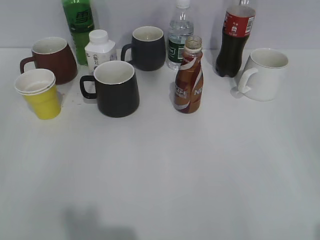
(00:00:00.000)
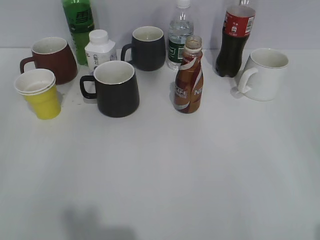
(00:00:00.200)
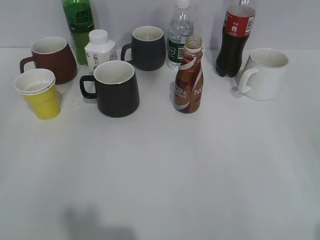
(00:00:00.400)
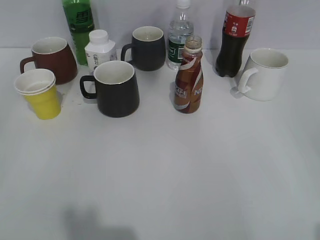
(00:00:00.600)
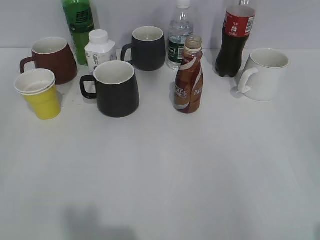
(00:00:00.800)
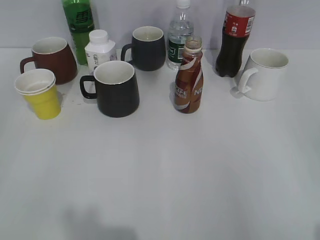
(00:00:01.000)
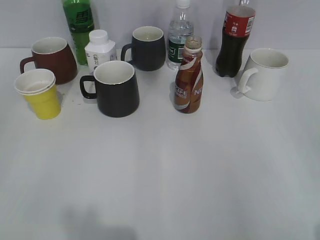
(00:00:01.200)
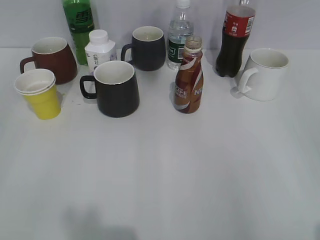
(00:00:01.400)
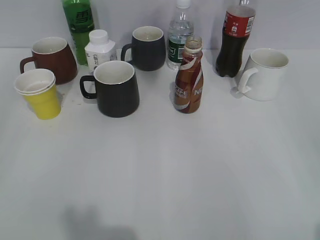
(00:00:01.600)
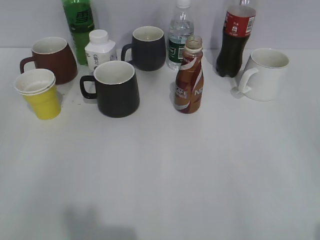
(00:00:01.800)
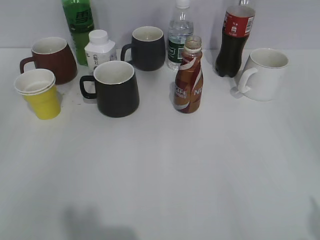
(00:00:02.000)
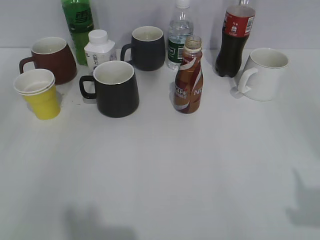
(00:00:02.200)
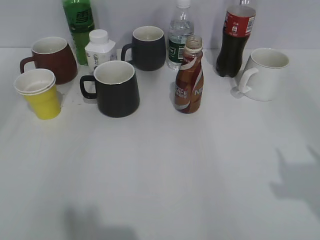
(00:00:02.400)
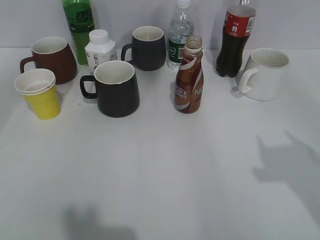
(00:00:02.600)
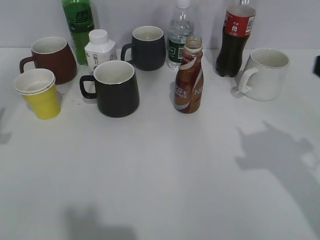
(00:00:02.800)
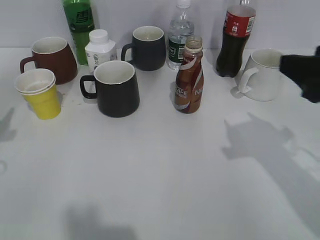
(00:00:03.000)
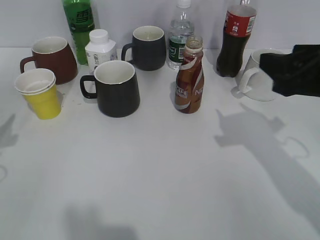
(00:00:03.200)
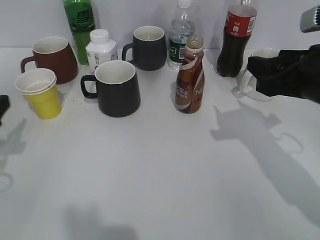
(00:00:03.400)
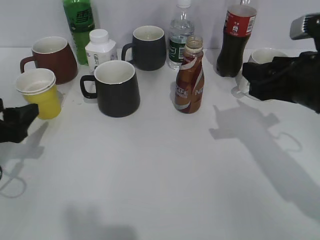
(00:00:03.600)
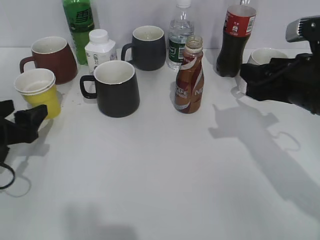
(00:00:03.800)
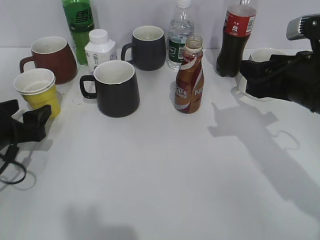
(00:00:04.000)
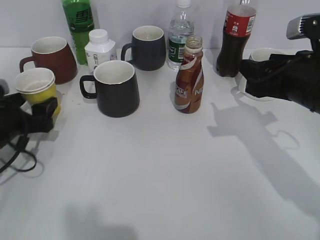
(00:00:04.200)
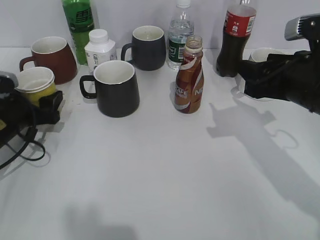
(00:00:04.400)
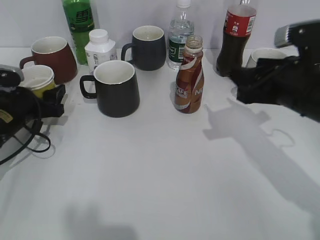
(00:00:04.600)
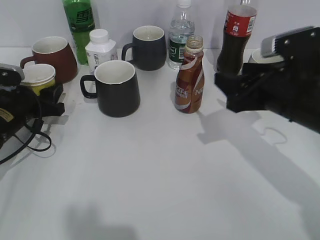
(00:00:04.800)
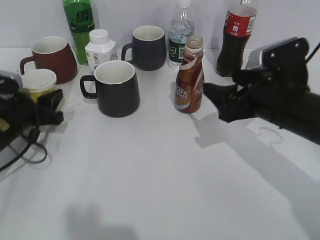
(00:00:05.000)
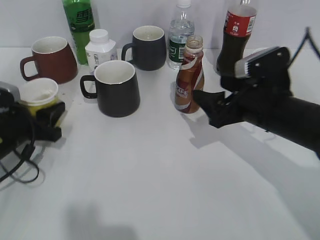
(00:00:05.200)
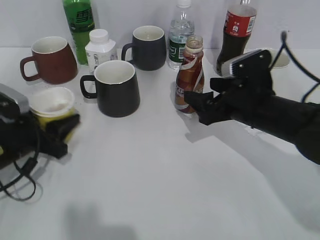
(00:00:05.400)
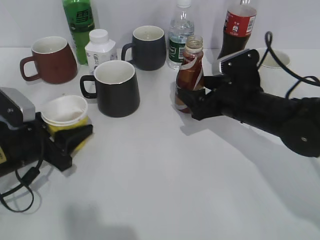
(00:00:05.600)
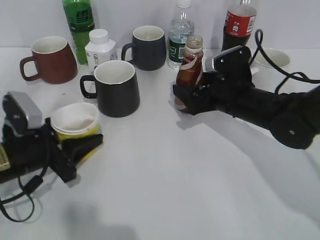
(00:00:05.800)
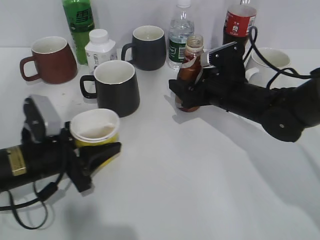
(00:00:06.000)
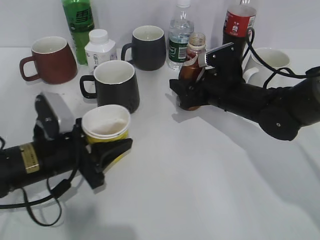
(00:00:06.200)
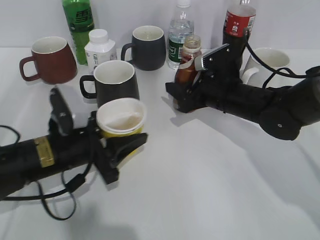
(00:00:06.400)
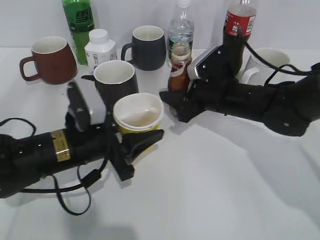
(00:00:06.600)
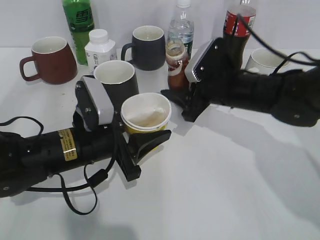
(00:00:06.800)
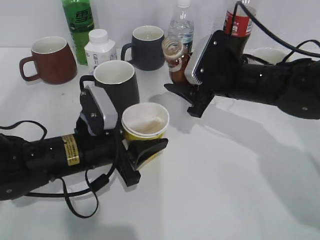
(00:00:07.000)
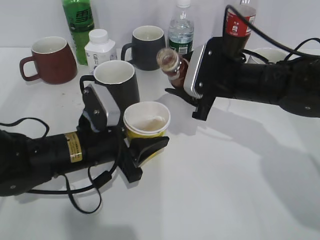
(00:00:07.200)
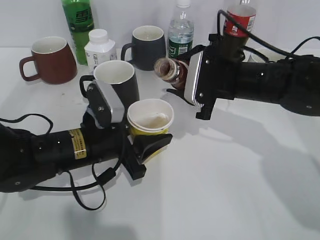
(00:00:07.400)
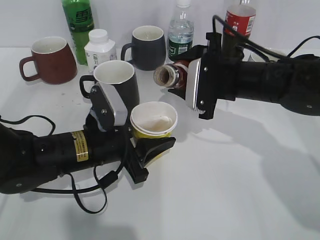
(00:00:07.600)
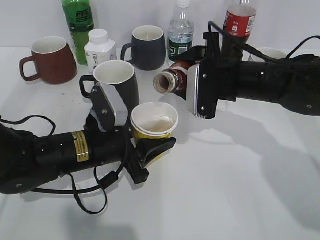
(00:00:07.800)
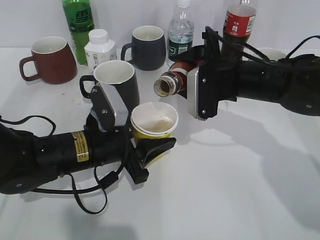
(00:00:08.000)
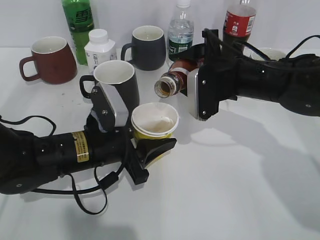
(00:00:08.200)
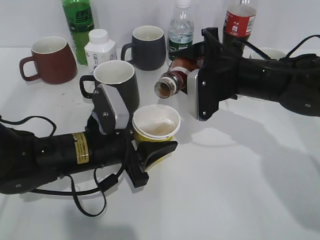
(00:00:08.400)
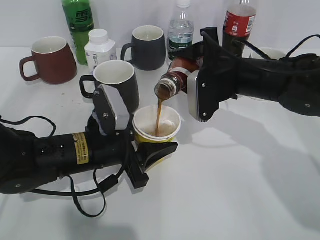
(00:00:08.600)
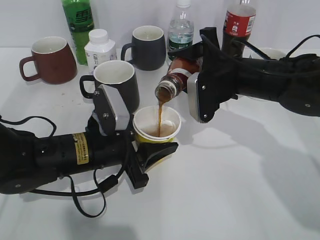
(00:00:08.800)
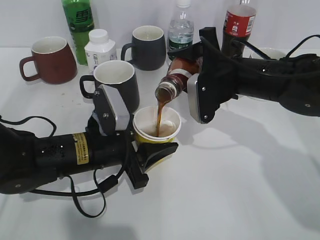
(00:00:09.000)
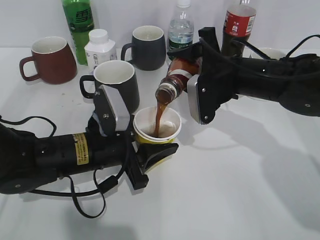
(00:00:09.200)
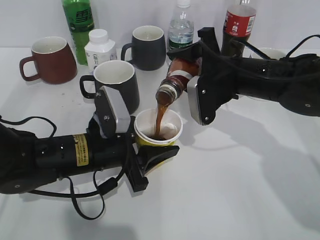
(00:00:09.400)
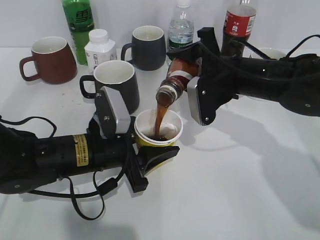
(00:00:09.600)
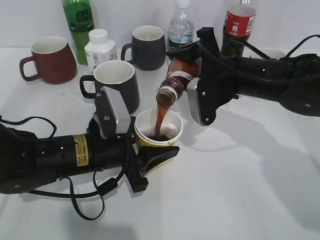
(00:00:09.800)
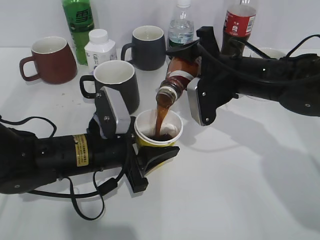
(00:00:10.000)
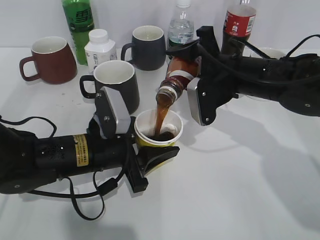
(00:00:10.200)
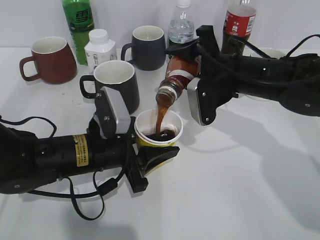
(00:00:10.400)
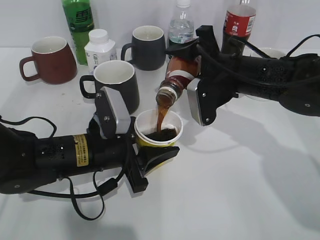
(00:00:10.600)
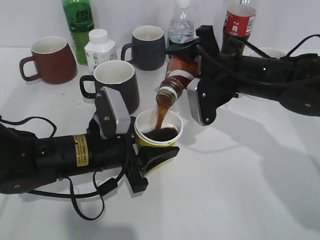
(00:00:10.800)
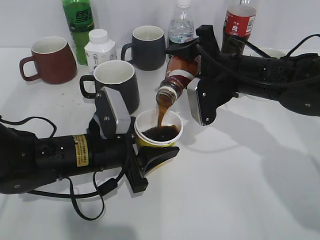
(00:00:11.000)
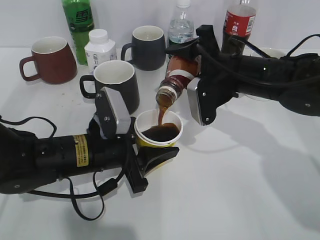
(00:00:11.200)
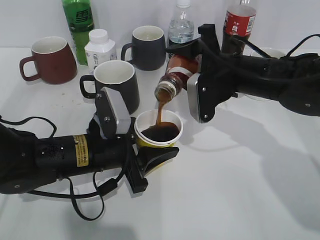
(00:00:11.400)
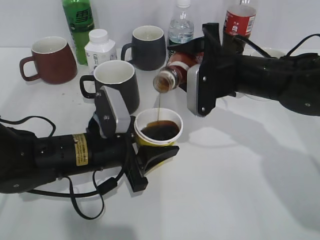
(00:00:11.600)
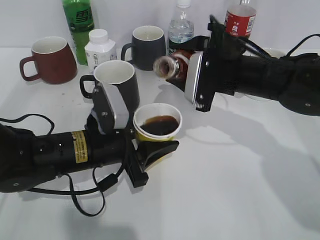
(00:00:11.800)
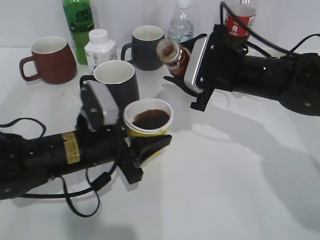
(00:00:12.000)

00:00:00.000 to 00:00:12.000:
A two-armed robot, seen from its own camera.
Step, 00:00:01.800 to 00:00:04.800: Grasp the yellow paper cup with left gripper.
Step, 00:00:05.000 to 00:00:06.200: Grasp the bottle with coffee with right gripper.
Step, 00:00:06.400 to 00:00:11.600: Pour the coffee from bottle to cup with right gripper.
00:00:01.600 to 00:00:03.000: The right gripper shifts some 20 cm forward.
00:00:03.000 to 00:00:04.400: The right gripper shifts roughly 10 cm forward and downward. Meanwhile the left gripper is displaced downward and forward by some 15 cm.
00:00:04.400 to 00:00:06.000: The right gripper travels downward, forward and to the left by roughly 15 cm, and opens its fingers. The left gripper moves to the right and backward, approximately 10 cm, and closes.
00:00:06.000 to 00:00:07.600: The right gripper ends up roughly 5 cm from where it was, and closes its fingers. Meanwhile the left gripper is displaced to the right by some 10 cm.
00:00:09.000 to 00:00:10.400: There are only small adjustments of the grippers.

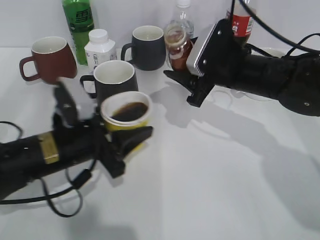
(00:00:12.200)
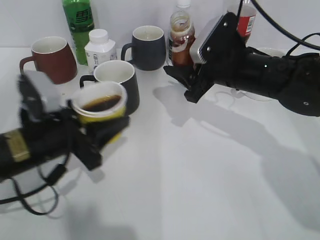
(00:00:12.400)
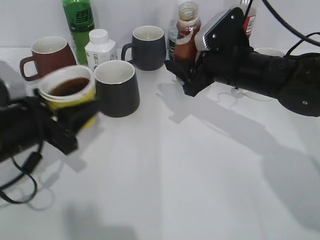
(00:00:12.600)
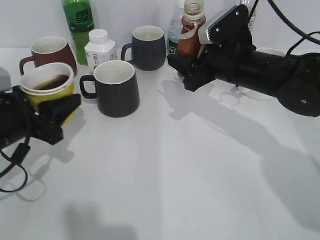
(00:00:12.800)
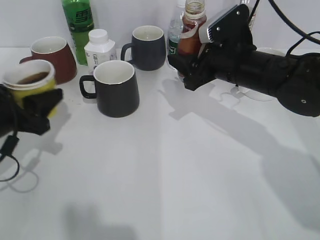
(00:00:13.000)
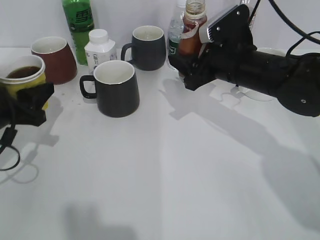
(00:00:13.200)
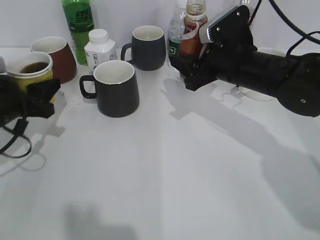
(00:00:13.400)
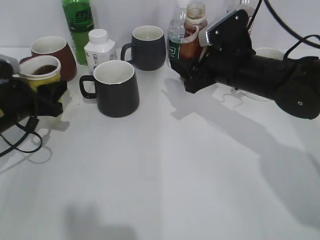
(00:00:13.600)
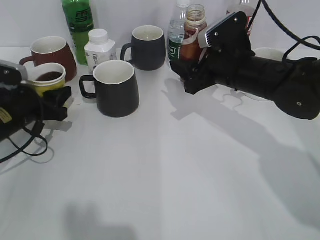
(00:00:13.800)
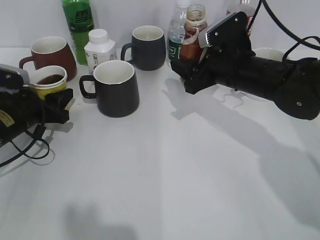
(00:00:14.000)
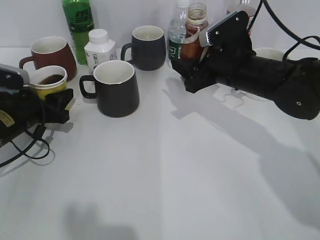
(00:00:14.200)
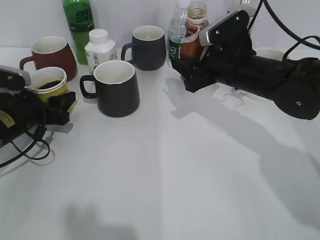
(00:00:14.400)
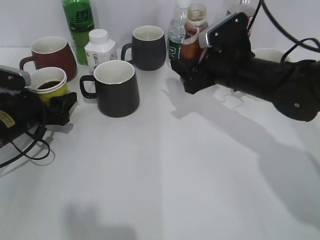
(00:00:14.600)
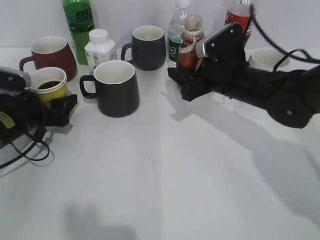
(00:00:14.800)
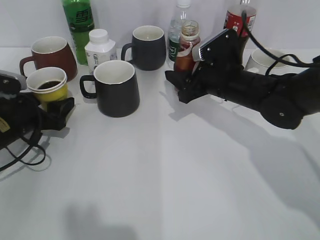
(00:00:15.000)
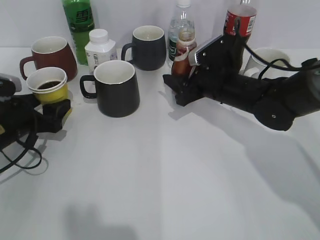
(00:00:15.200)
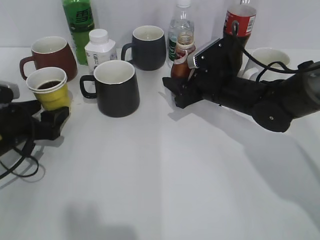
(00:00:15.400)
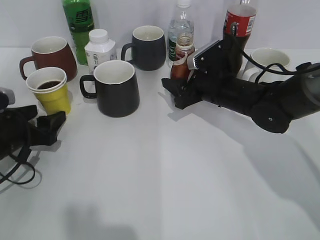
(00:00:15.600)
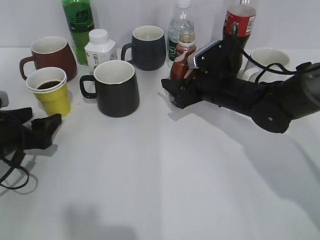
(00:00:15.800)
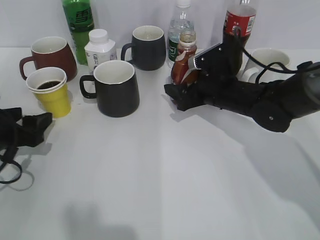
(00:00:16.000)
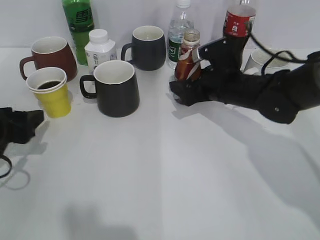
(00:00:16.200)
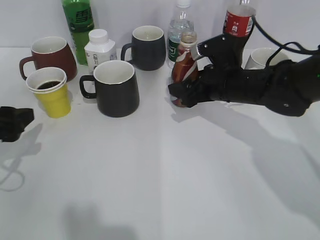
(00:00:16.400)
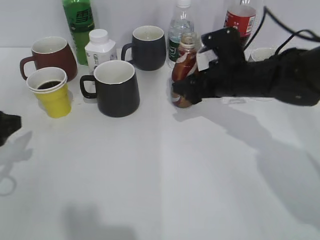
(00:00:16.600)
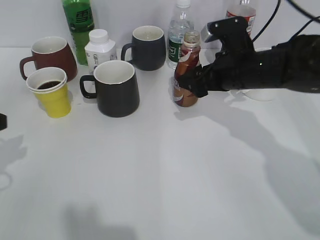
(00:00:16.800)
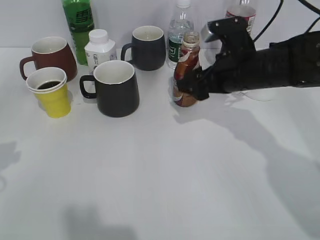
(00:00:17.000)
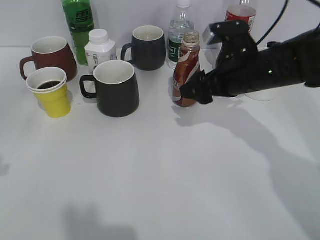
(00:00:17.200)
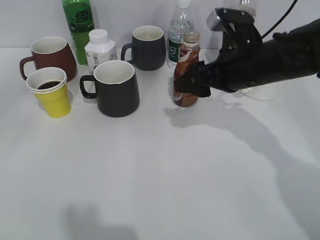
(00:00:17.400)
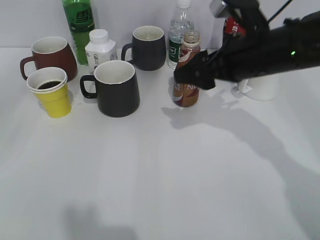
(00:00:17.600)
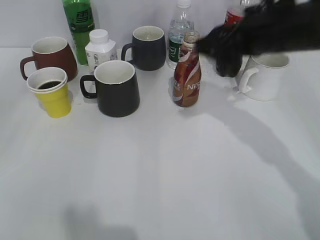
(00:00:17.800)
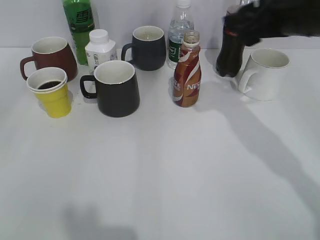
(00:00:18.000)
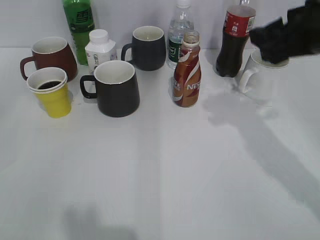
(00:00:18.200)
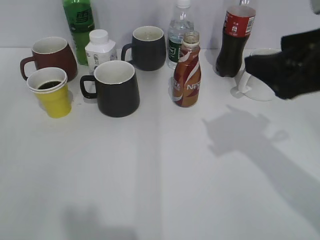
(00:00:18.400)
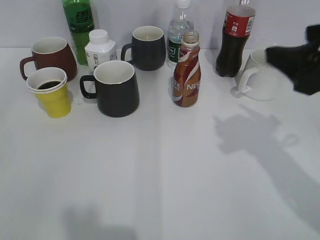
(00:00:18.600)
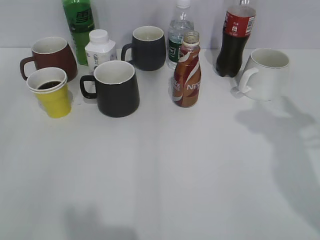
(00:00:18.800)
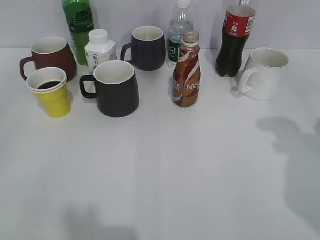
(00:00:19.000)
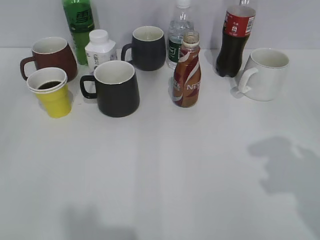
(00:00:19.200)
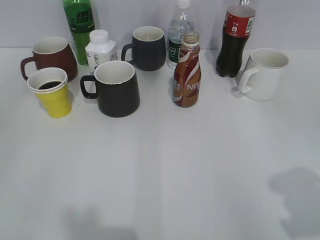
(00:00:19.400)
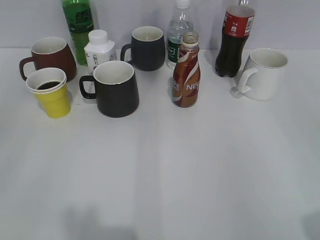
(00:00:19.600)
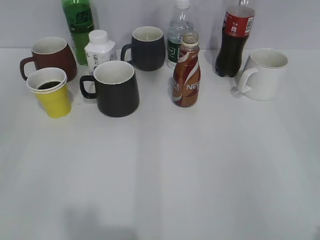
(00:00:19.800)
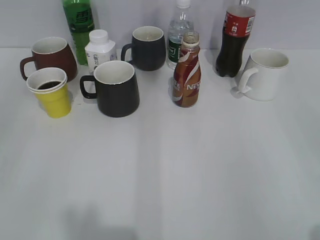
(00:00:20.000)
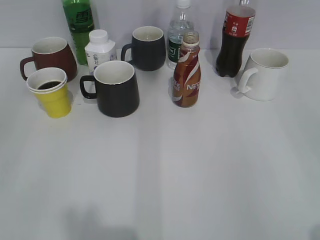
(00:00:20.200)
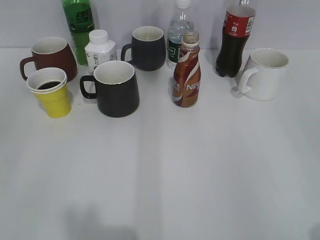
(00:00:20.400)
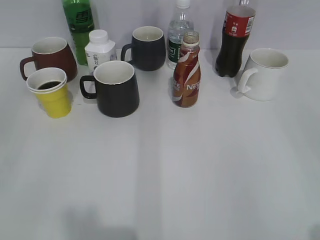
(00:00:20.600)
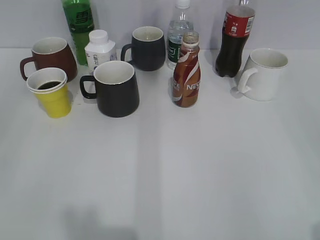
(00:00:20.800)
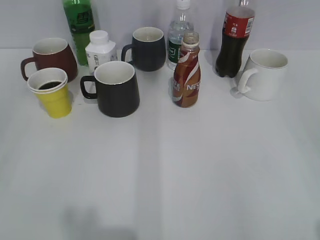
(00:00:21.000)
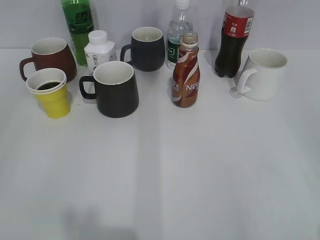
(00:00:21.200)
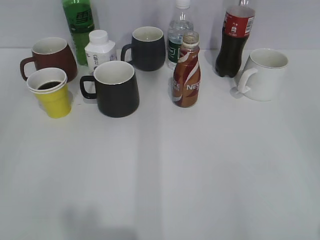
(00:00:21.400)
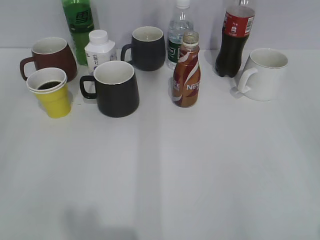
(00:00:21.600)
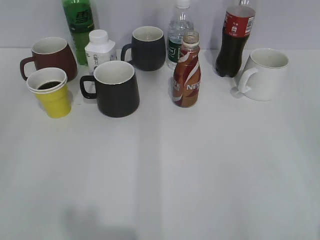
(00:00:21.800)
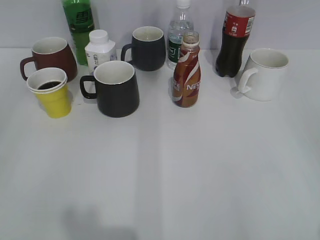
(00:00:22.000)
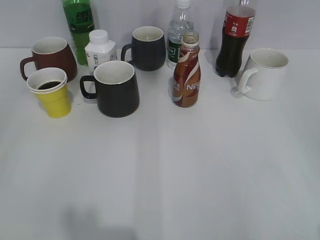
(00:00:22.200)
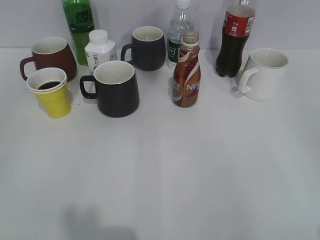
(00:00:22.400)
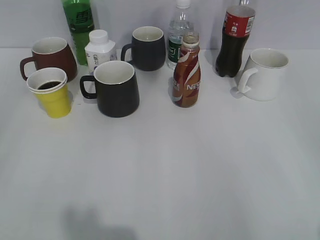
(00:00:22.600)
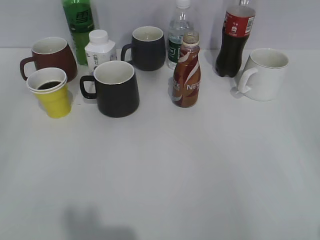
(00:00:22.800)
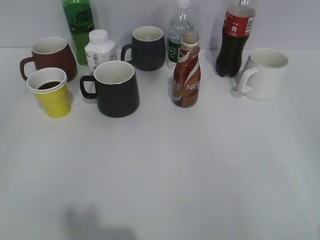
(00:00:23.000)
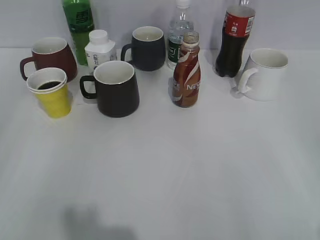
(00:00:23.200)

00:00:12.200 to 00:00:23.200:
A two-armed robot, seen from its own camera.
Step, 00:00:12.200 to 00:00:14.600: Place the yellow paper cup on the table with left gripper.
Step, 00:00:14.800 to 00:00:17.400: Place the coffee bottle on the table with right gripper.
00:00:12.200 to 00:00:13.800: The left gripper moves to the left and forward, roughly 15 cm.
00:00:13.800 to 00:00:15.400: The left gripper opens its fingers. Meanwhile the right gripper heads downward, covering approximately 5 cm.
00:00:15.400 to 00:00:17.000: The right gripper moves upward, roughly 5 cm, and opens, while the left gripper heads upward and backward, covering approximately 15 cm.
00:00:17.000 to 00:00:18.400: The left gripper heads backward and upward, covering about 20 cm, while the right gripper is displaced backward, upward and to the right by about 15 cm.
00:00:18.400 to 00:00:20.000: The right gripper shifts some 25 cm backward and to the right, and closes up.
00:00:21.600 to 00:00:23.200: Both grippers stay about where they are.
